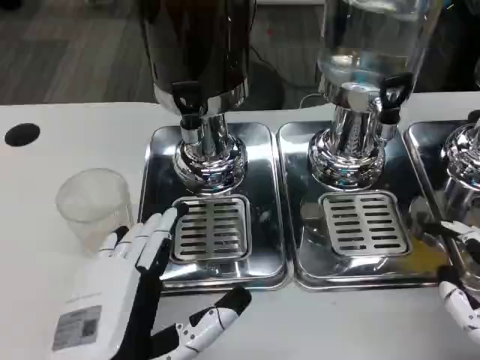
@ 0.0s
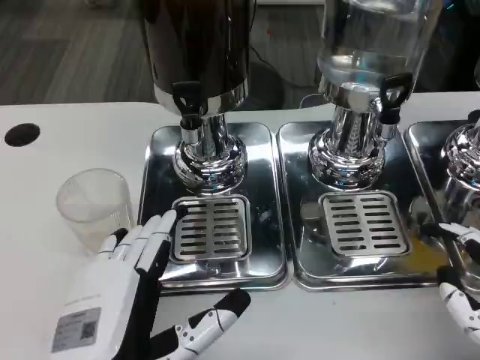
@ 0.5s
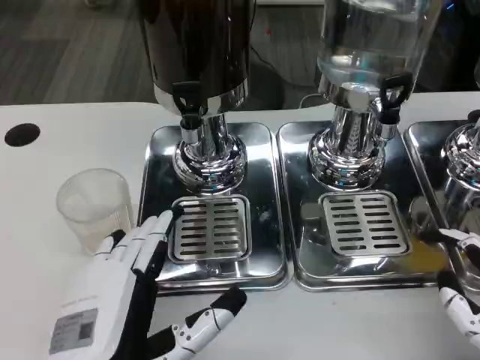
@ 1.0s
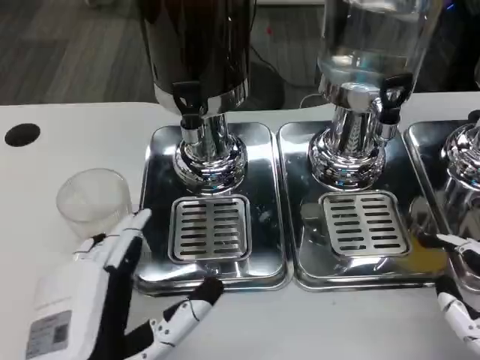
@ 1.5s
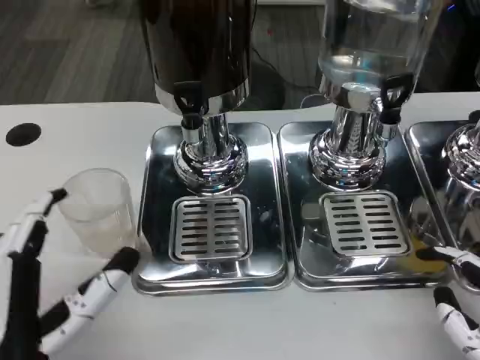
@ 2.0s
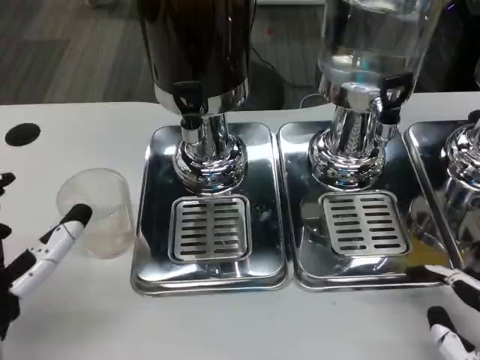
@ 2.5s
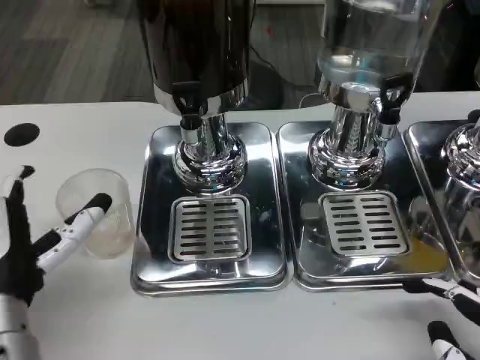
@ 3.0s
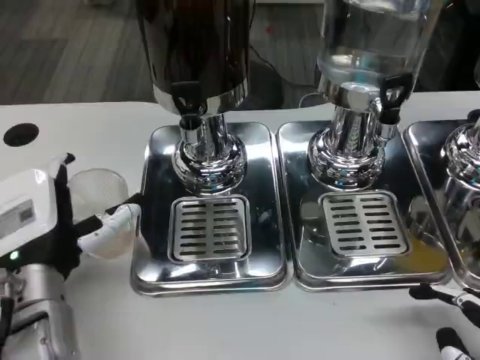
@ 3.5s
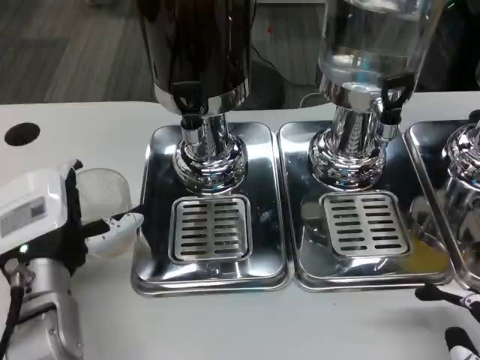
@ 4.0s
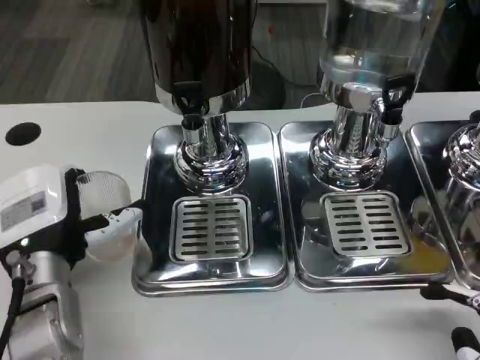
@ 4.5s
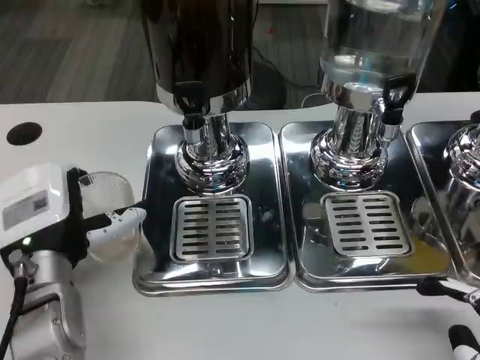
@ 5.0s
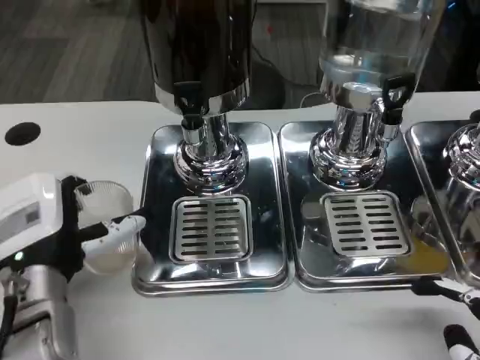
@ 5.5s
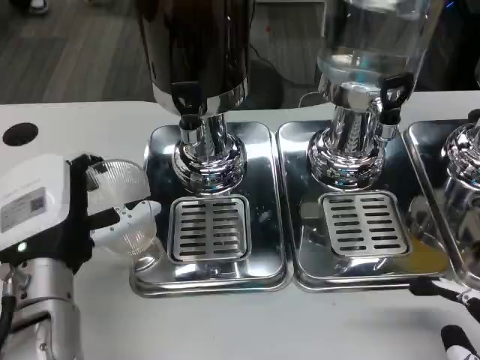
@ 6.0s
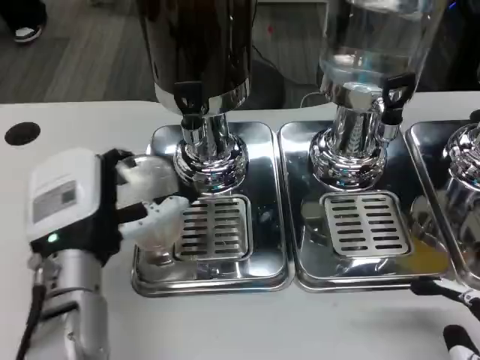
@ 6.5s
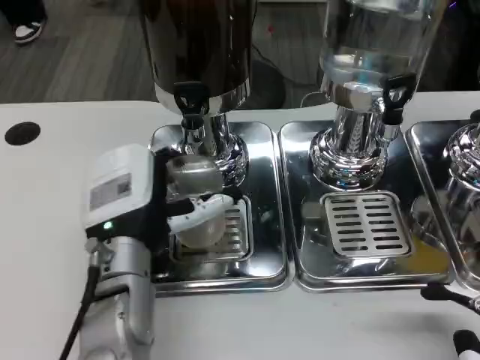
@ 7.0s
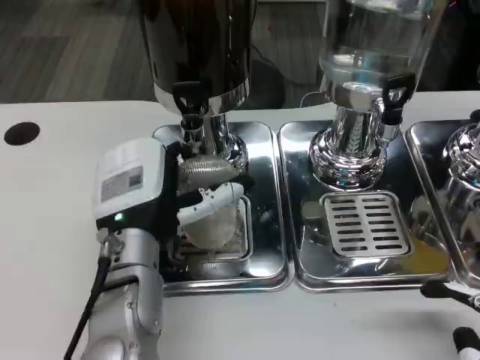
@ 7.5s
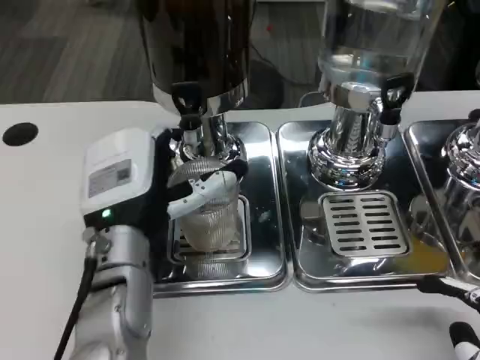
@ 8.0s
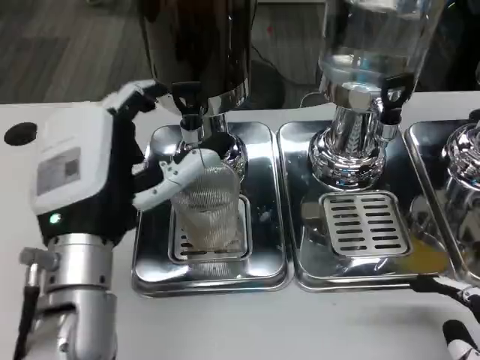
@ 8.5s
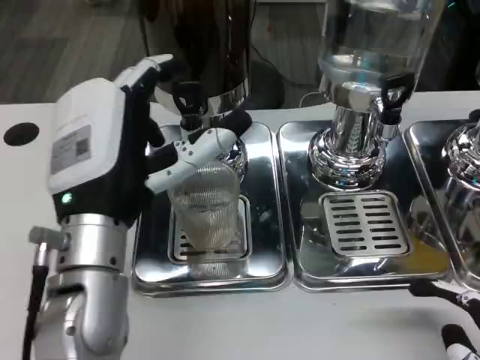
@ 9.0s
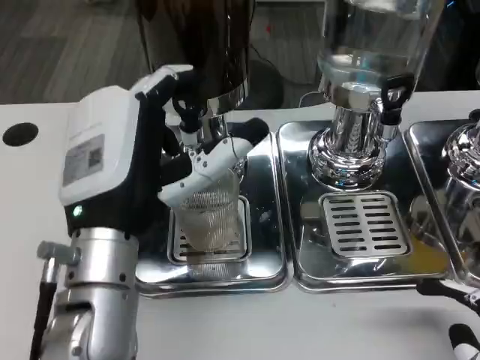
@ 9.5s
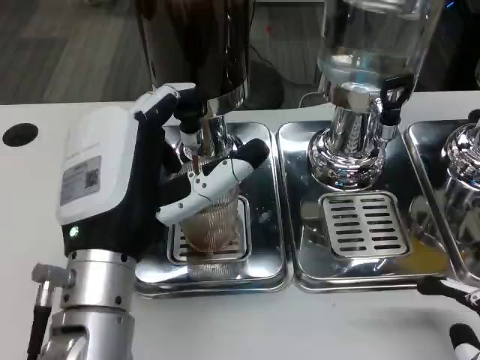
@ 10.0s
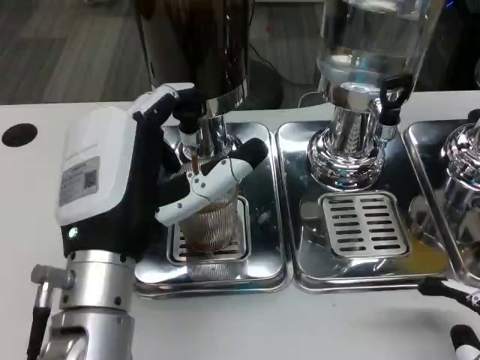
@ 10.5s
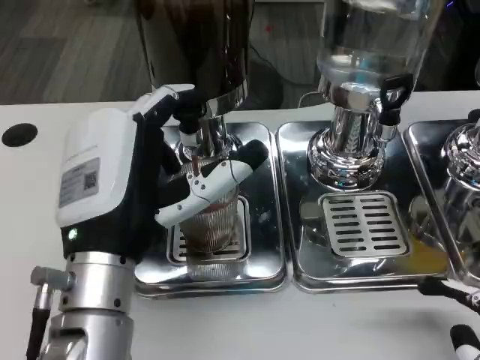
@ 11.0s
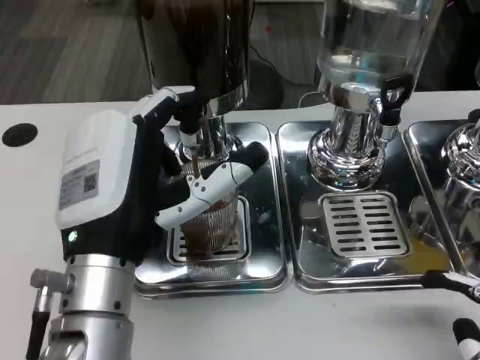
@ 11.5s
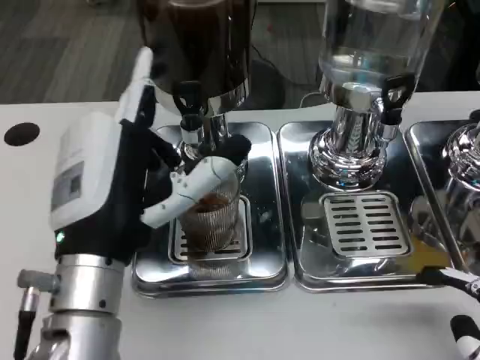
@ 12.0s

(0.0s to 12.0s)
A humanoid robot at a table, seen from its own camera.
Task of the whole recording: Grasp the cup under the faucet to collect the drink, then remove the cup.
0.0s - 2.0s: The hands stay close to where they were, moving slightly.
2.0s - 4.0s: The left hand moves forward, roughly 15 cm.
4.0s - 6.0s: There are only small adjustments of the hands.
6.0s - 8.0s: The left hand travels to the right by some 5 cm.
8.0s - 10.0s: The left hand travels backward by roughly 5 cm.
10.0s - 12.0s: There are only small adjustments of the hands.

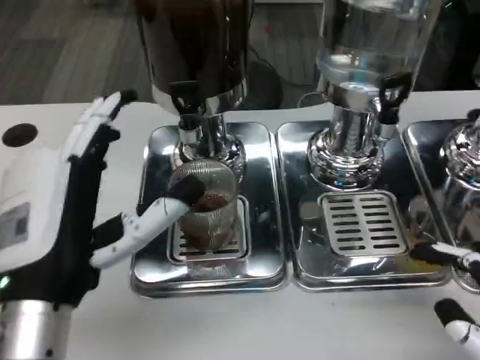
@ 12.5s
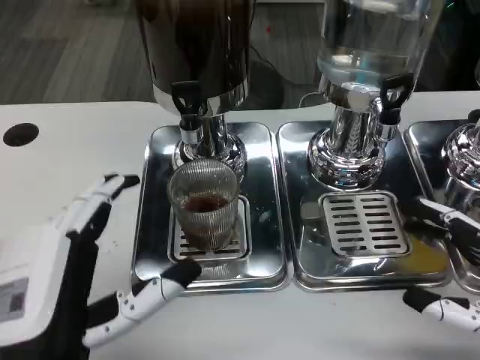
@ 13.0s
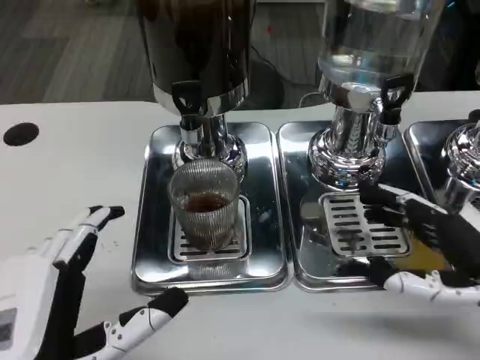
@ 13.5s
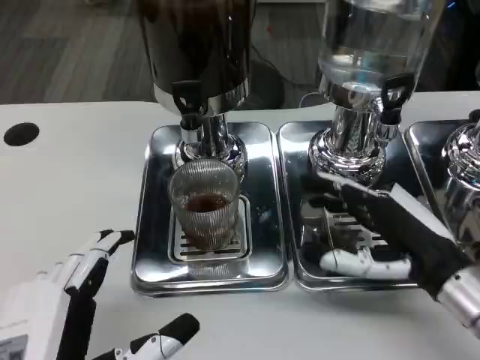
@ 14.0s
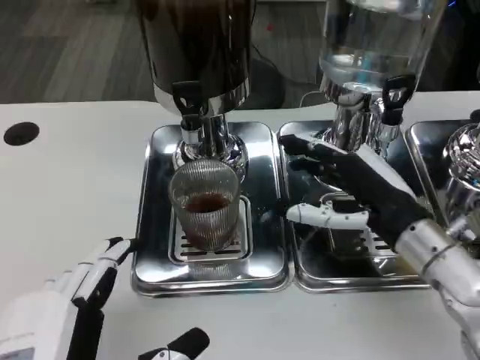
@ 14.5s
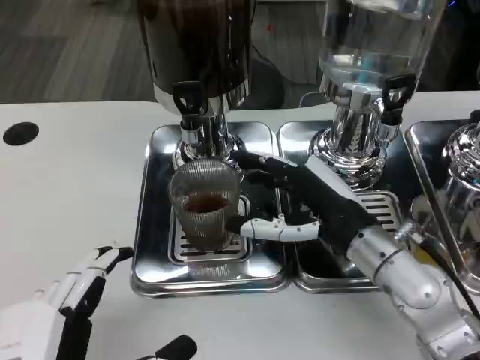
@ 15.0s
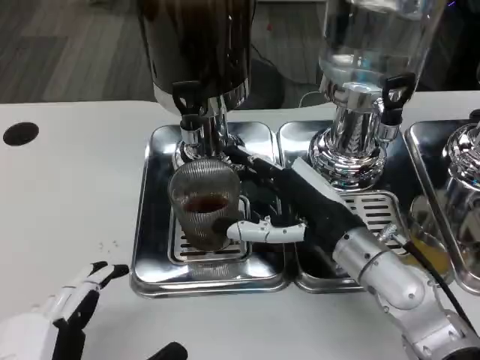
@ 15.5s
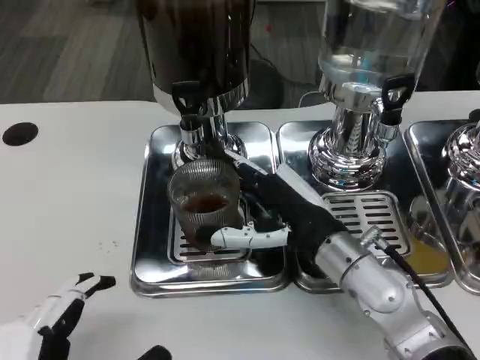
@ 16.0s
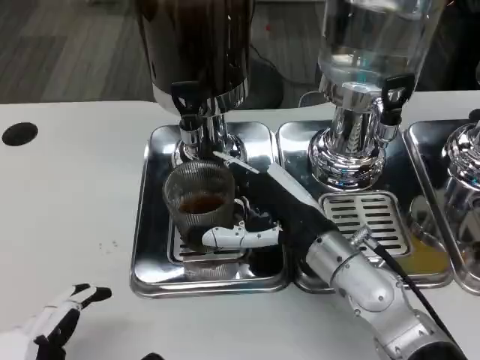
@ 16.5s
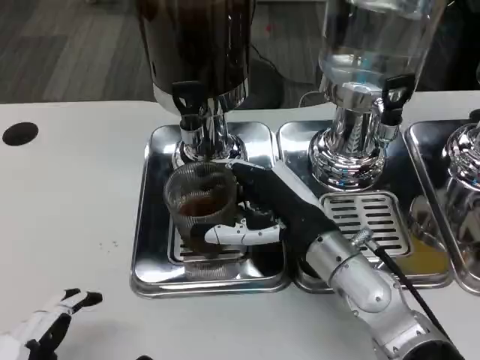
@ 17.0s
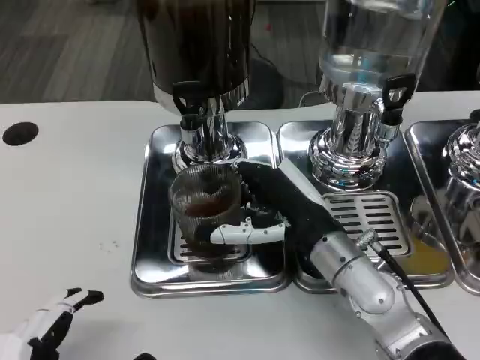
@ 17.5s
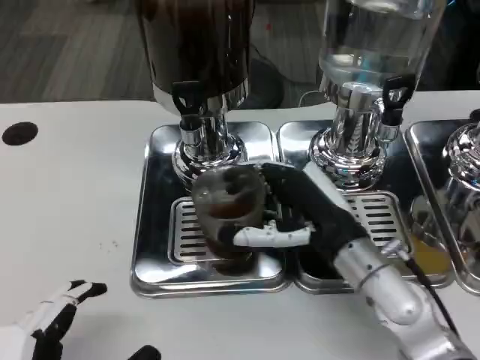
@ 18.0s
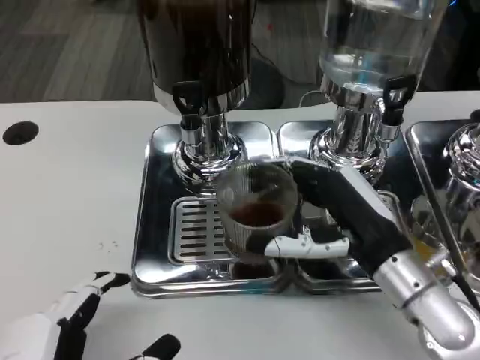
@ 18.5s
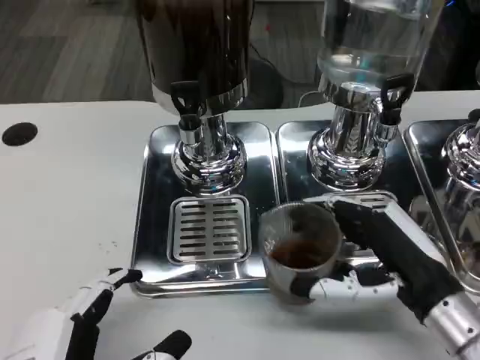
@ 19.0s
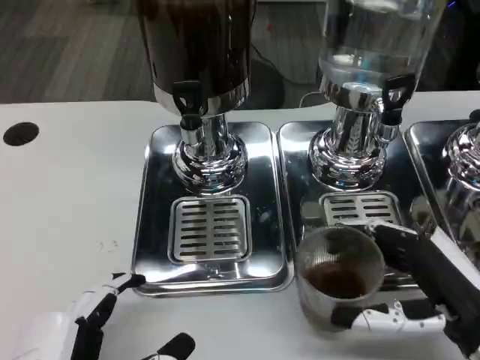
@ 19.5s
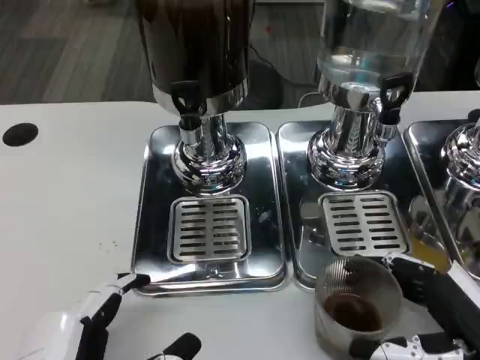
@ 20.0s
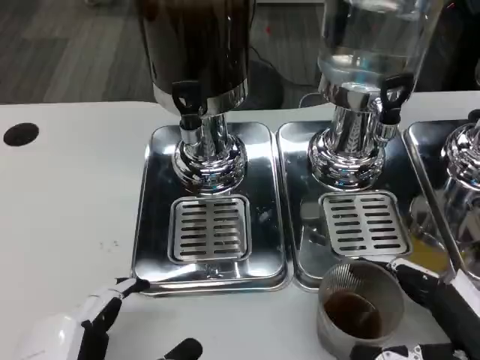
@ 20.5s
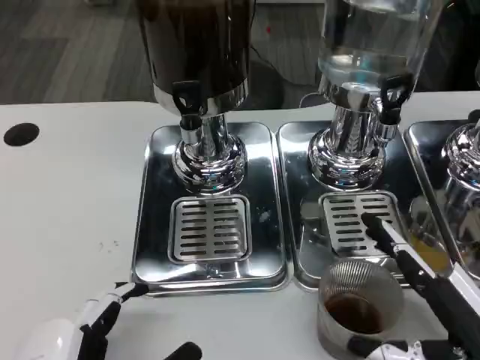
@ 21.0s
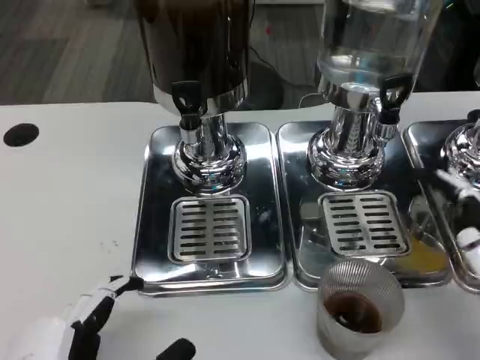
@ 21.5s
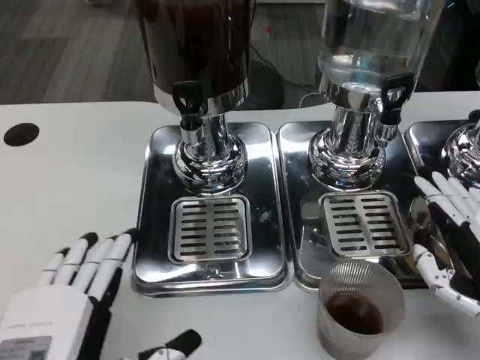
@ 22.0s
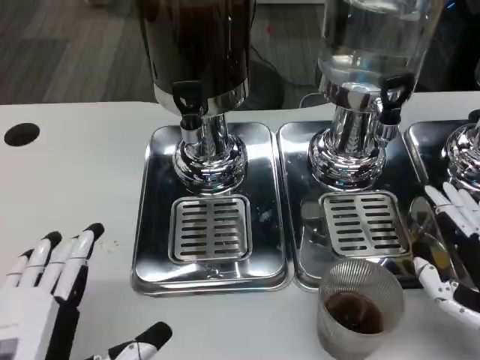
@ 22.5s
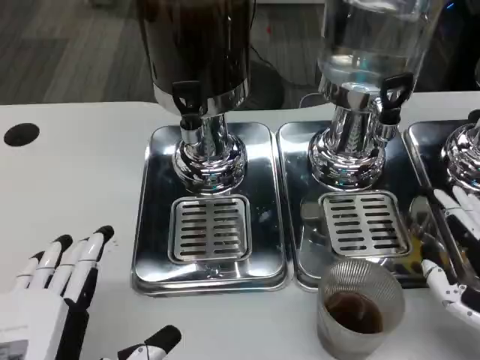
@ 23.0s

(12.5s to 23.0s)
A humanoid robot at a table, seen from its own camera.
Task of the whole recording: Grasp the cup under the faucet to collect the drink, then remove the cup.
12.5s - 14.5s: The left hand moves backward, approximately 10 cm, while the right hand travels forward and to the left by some 20 cm.
14.5s - 16.5s: The right hand is displaced to the left by some 10 cm.
16.5s - 19.0s: The right hand is displaced to the right and backward by roughly 15 cm.
19.0s - 21.0s: The right hand heads backward, covering some 5 cm.

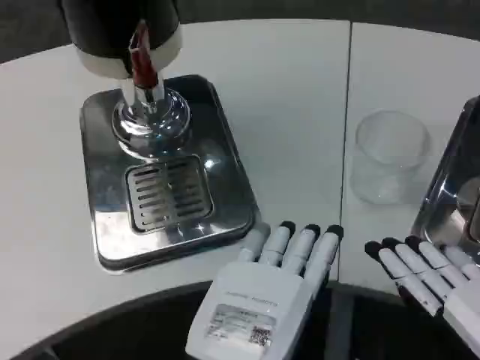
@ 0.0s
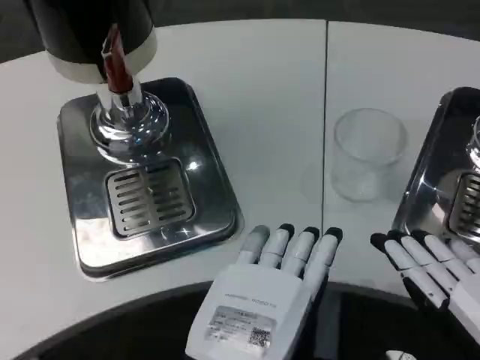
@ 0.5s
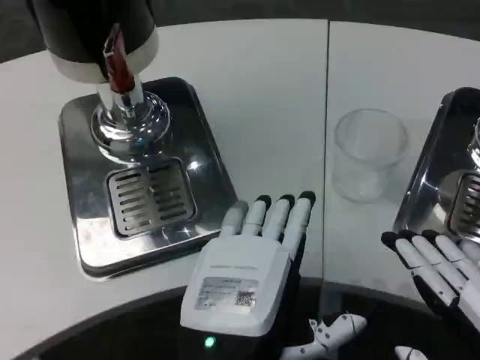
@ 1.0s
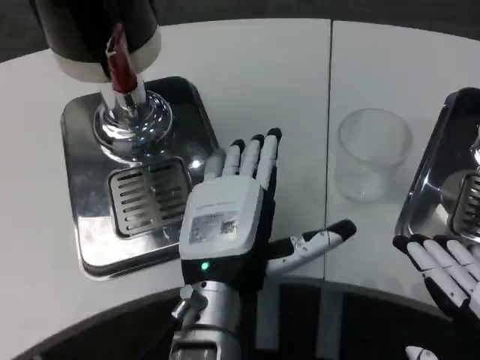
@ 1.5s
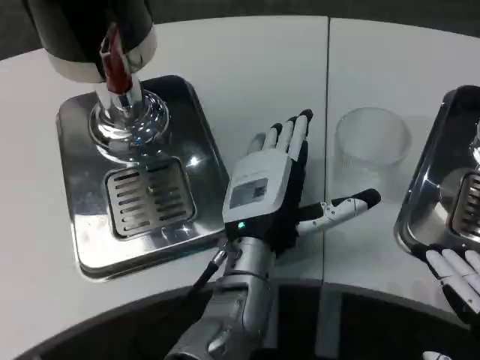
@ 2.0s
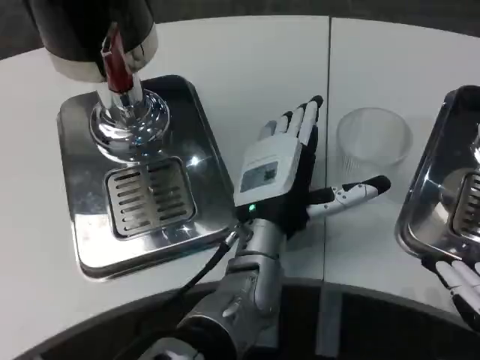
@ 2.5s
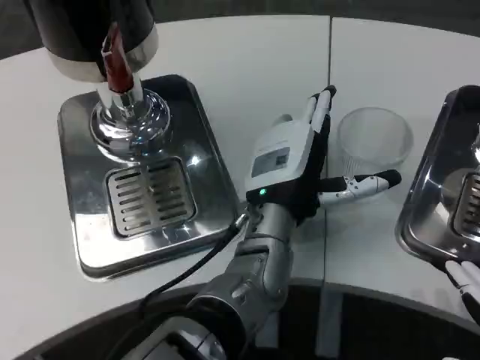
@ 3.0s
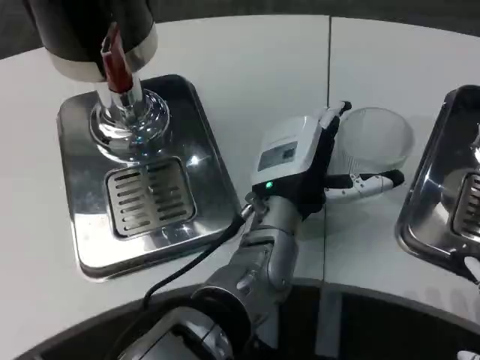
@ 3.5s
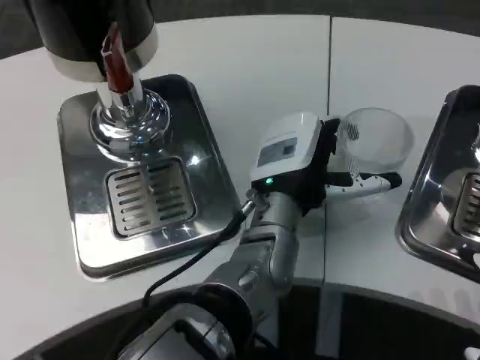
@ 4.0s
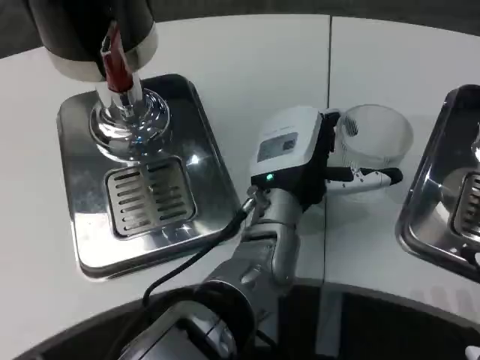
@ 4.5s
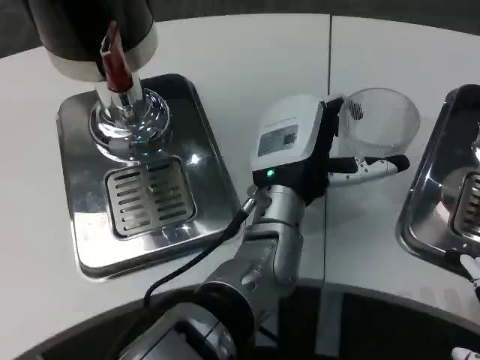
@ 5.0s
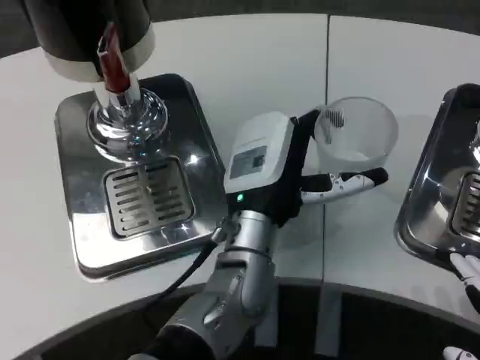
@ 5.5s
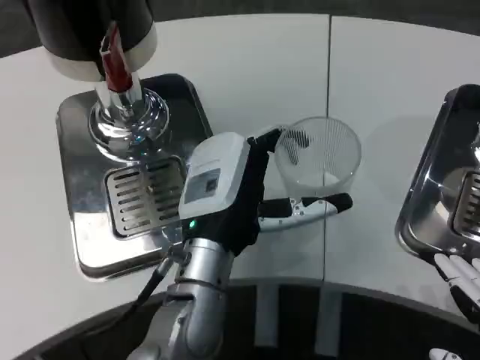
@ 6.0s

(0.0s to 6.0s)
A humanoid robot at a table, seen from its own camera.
Task of the whole recording: Grasp the cup under the faucet to collect the drink, then remove the cup.
0.0s - 2.0s: The left hand moves forward, roughly 20 cm.
2.0s - 4.0s: The left hand changes place by roughly 5 cm.
4.0s - 6.0s: The left hand shifts about 10 cm to the left and backward.
